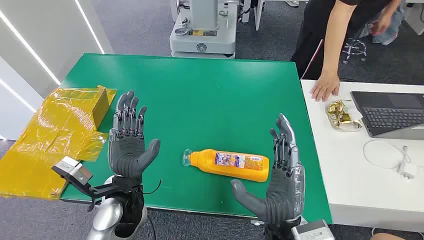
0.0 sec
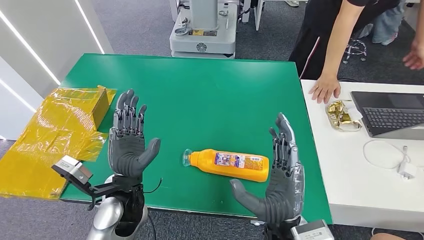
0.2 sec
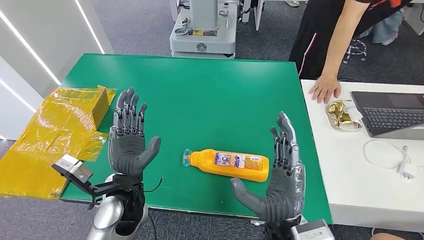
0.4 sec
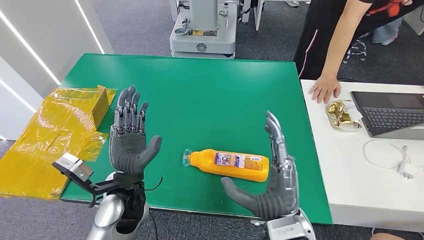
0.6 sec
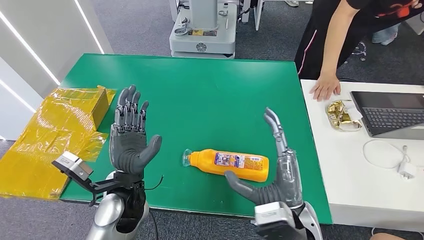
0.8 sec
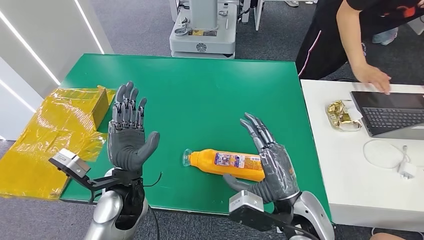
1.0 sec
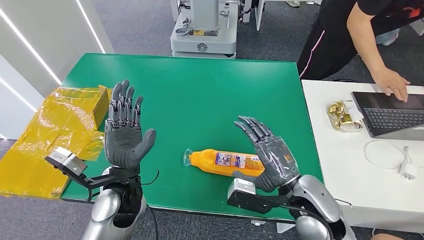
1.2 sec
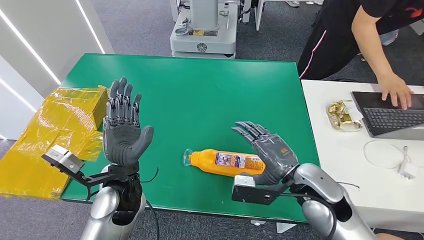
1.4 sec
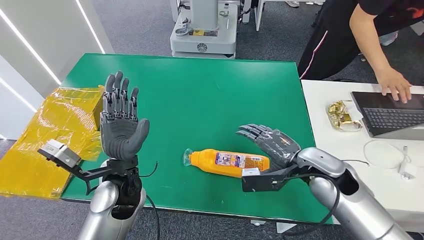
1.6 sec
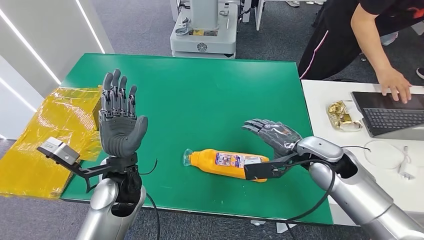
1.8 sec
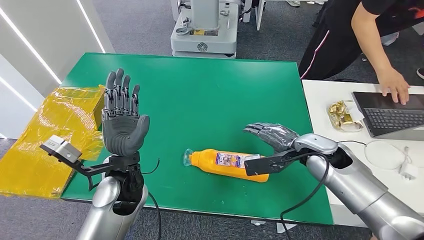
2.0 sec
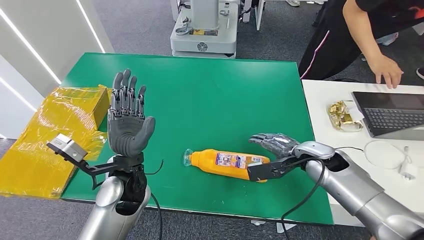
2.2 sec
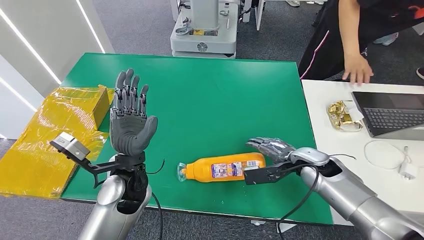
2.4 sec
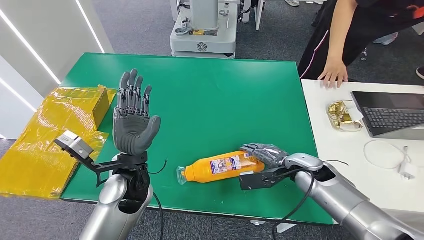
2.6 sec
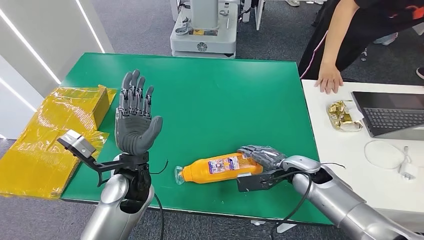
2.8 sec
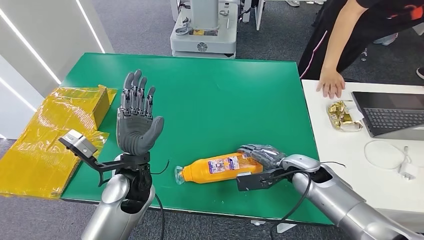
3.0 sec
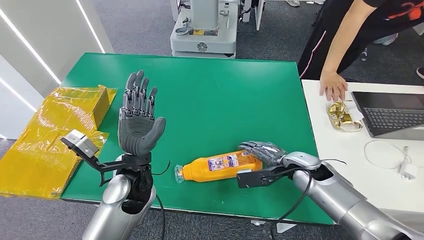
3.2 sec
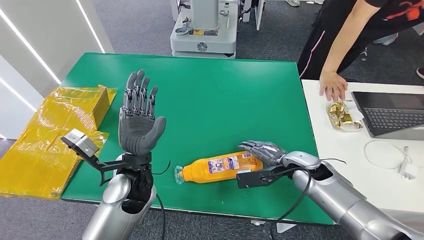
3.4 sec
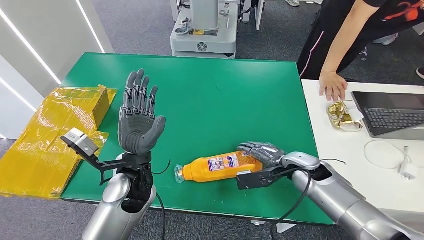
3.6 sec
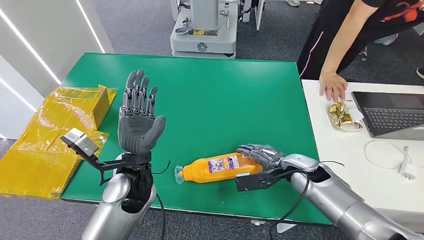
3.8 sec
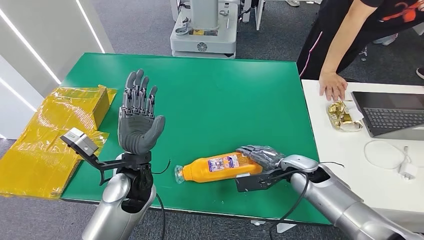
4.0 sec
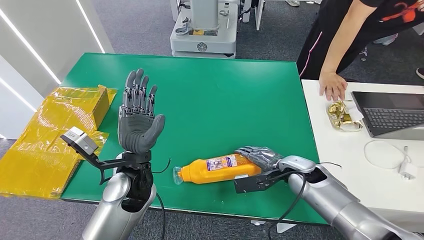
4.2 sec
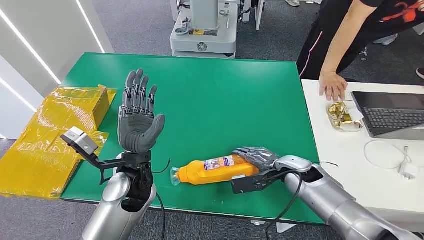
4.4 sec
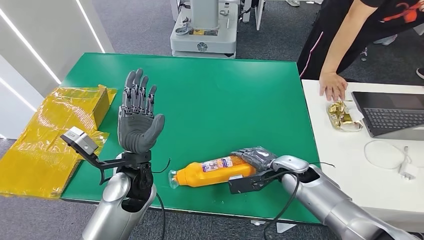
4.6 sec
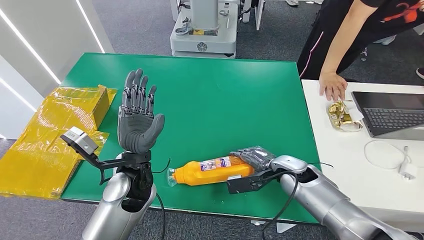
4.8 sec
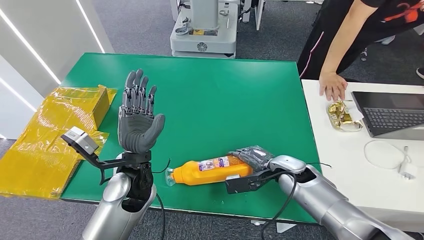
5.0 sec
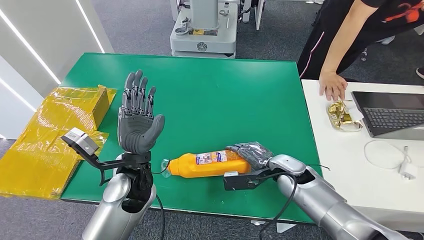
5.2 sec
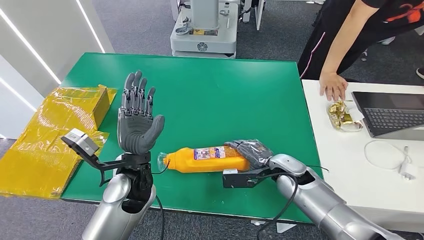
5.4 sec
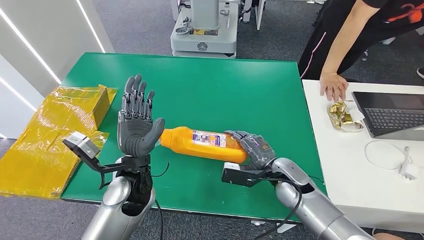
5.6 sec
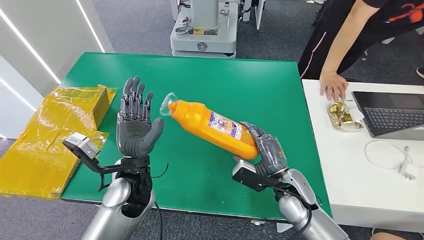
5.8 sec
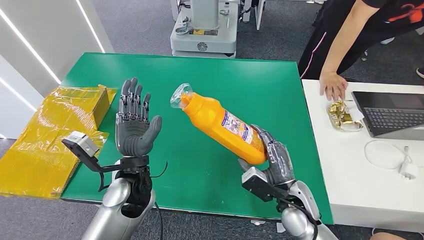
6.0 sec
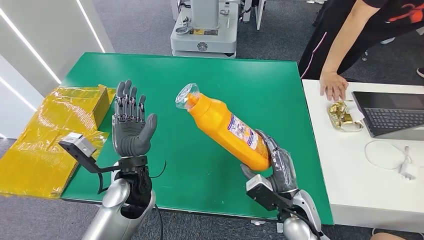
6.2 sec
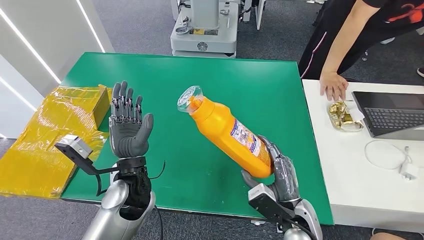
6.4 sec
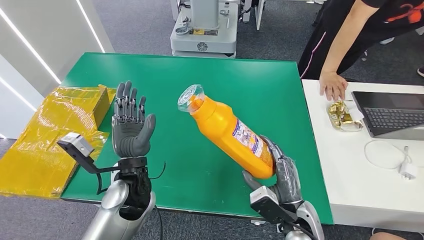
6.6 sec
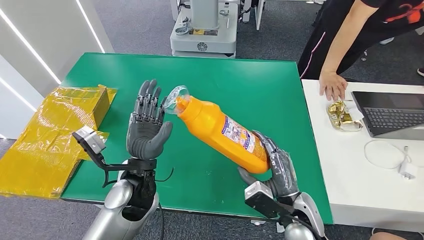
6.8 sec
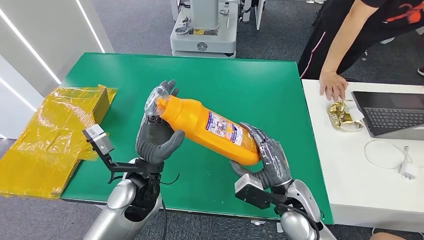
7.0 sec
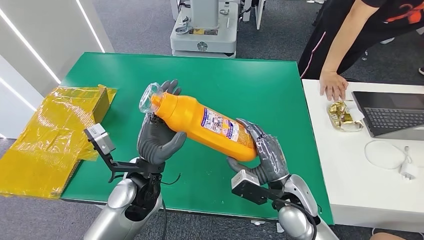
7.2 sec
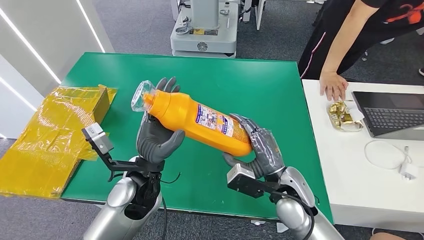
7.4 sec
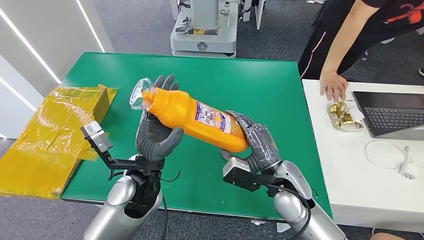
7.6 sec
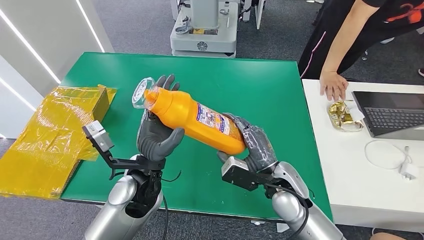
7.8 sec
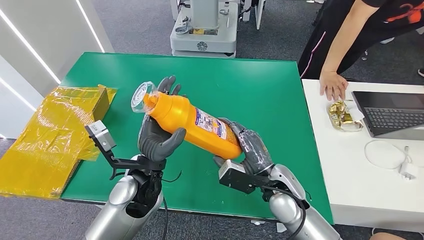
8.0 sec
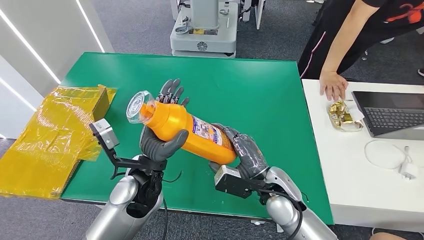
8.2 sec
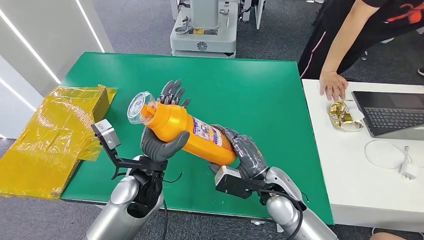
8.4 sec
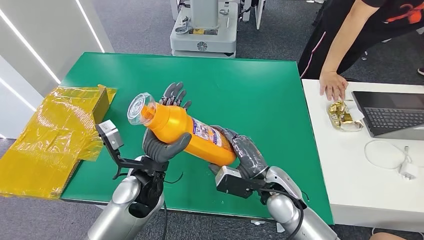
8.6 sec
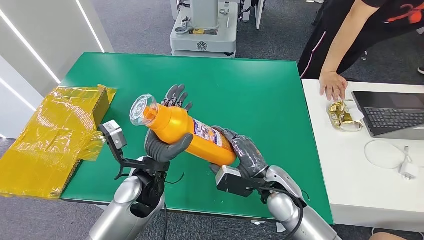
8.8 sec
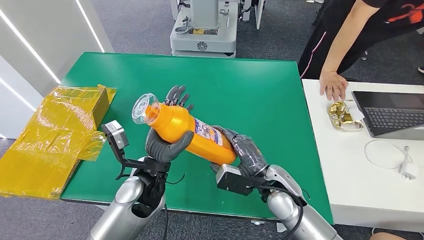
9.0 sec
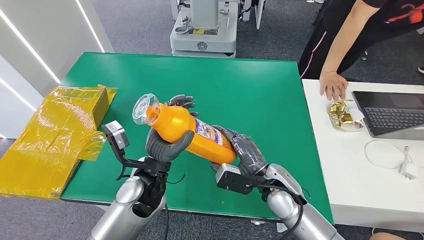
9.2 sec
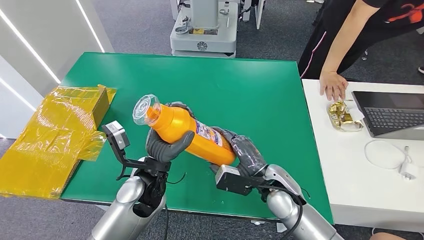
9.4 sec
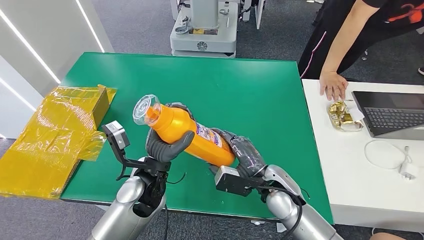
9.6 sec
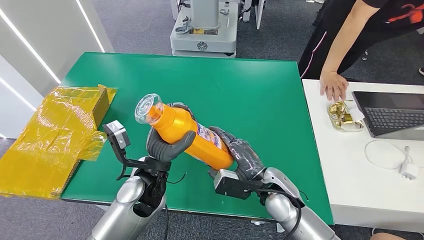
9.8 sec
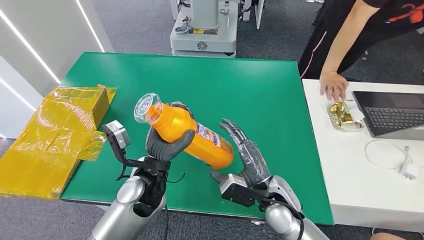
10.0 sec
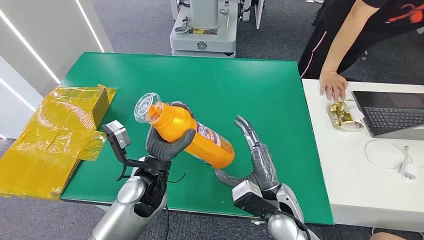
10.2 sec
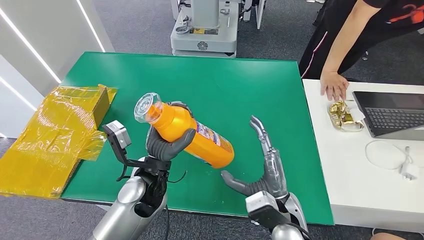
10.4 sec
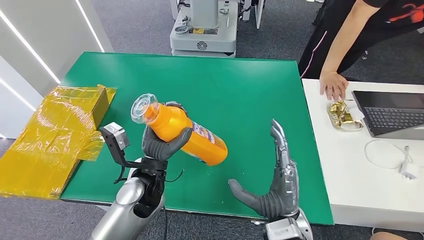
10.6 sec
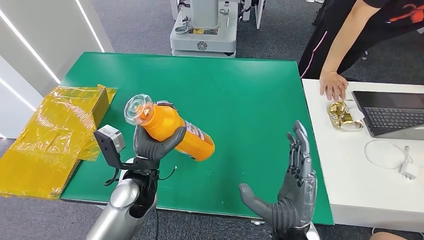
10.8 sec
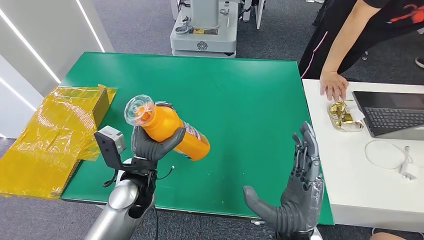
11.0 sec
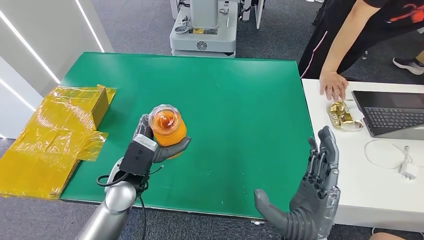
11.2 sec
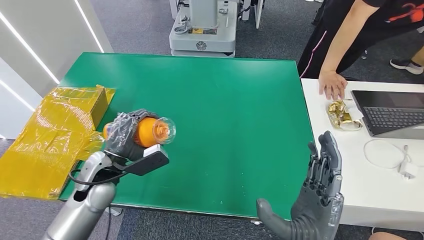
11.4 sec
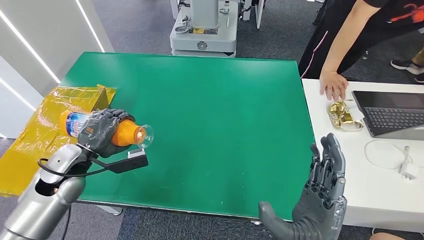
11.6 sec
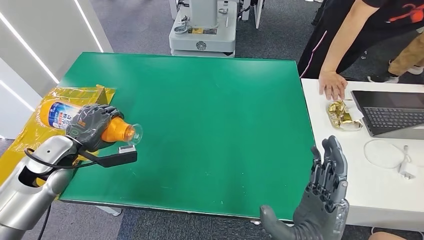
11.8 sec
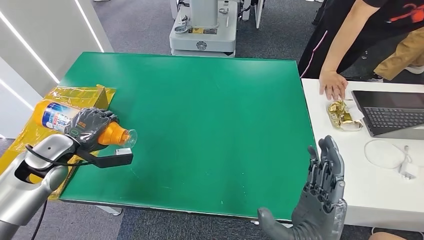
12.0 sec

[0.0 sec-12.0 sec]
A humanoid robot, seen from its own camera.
Step, 0.0 sec to 5.8 sec: Pick up the bottle from the table.
1.6 sec to 3.0 sec: The right hand travels downward by approximately 10 cm.
3.0 sec to 4.4 sec: The hands make only small movements.
4.4 sec to 6.0 sec: The right hand heads backward, covering some 10 cm.
6.0 sec to 7.6 sec: The right hand is displaced upward by approximately 5 cm, and travels backward and back again, some 5 cm each way.
7.6 sec to 9.0 sec: The hands move only a little.
9.0 sec to 10.4 sec: The right hand moves backward, about 5 cm.

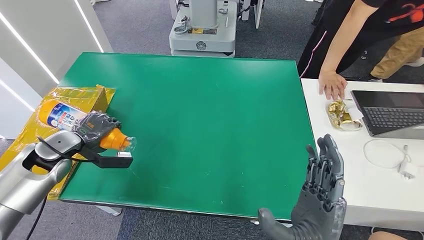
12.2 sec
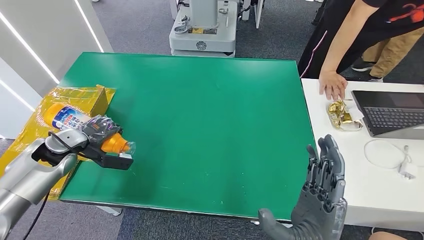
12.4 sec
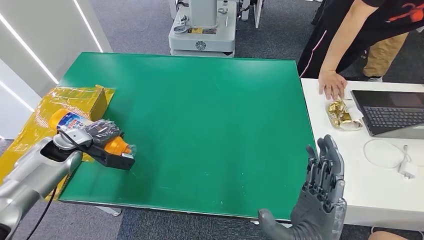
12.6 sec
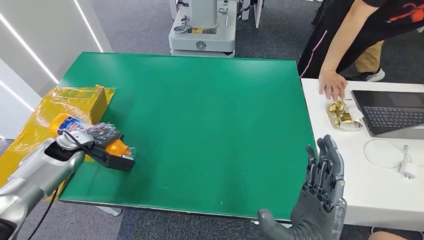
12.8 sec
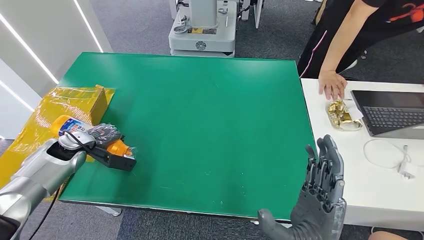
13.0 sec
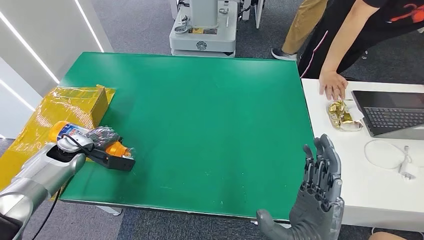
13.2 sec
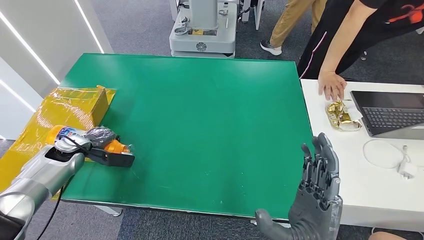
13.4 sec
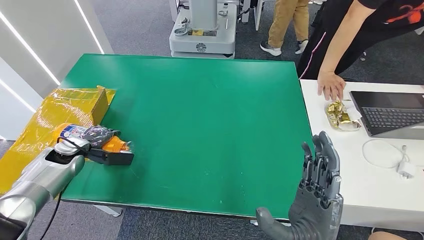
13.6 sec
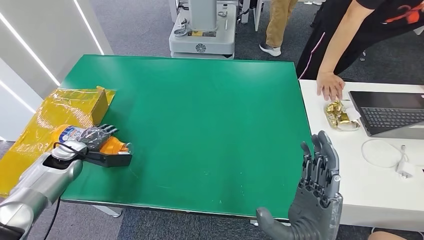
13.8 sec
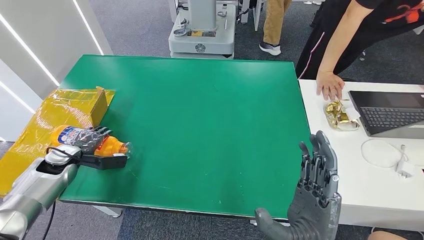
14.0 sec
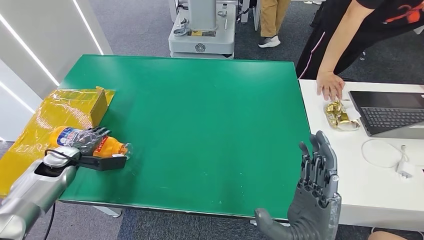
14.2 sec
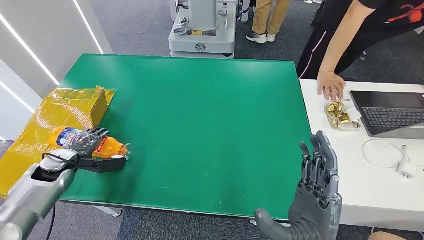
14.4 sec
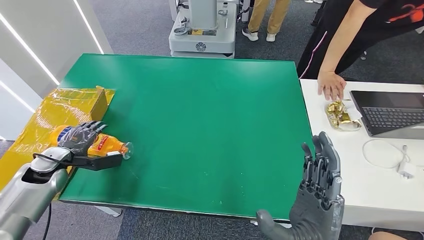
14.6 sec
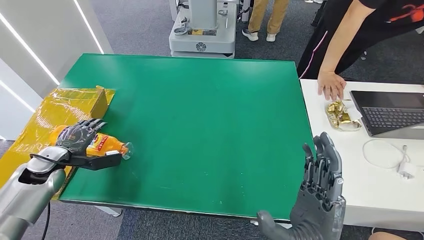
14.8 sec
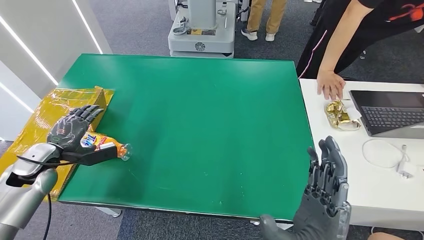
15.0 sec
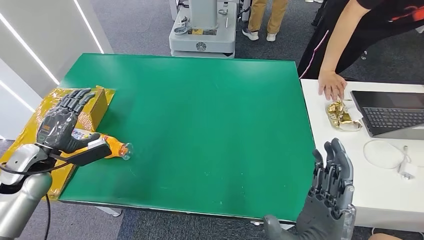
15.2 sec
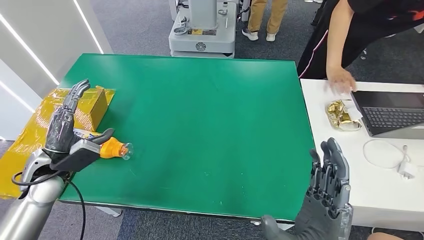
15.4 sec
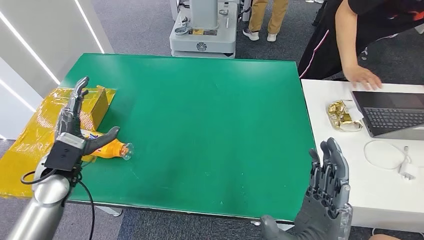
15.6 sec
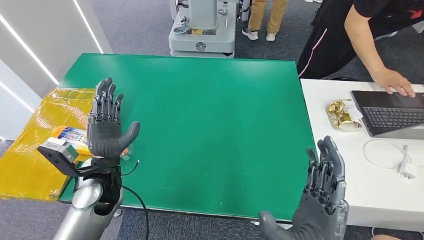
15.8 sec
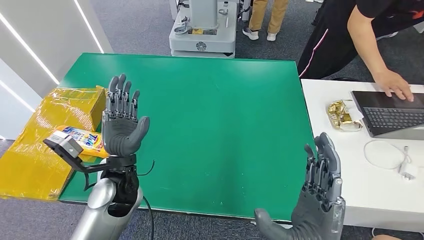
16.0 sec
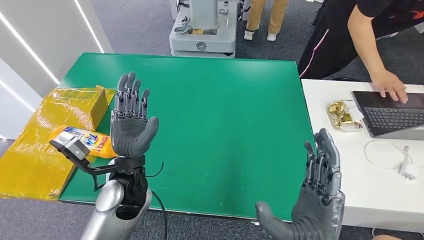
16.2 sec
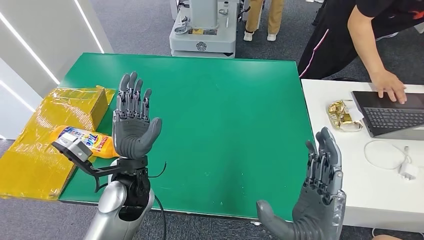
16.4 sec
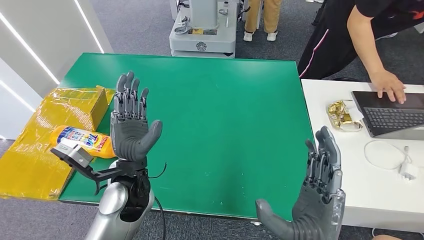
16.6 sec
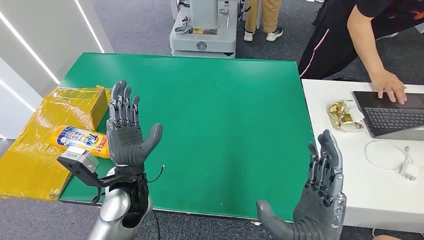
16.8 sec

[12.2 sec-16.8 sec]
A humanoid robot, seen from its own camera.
Step, 12.2 sec to 16.8 sec: Turn the bottle to the front side.
12.2 sec to 13.8 sec: The left hand goes roughly 10 cm downward.
13.8 sec to 15.2 sec: The left hand shifts about 10 cm upward and backward.
